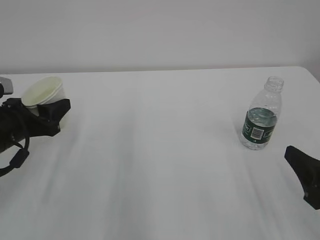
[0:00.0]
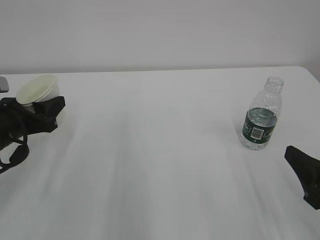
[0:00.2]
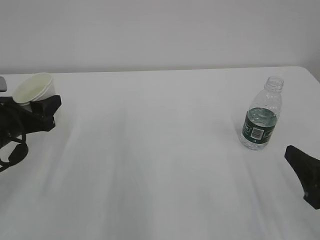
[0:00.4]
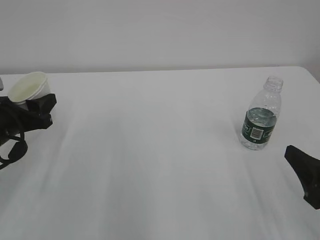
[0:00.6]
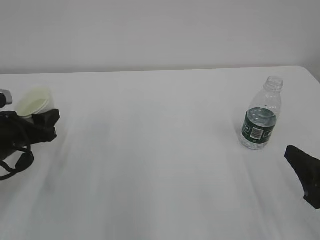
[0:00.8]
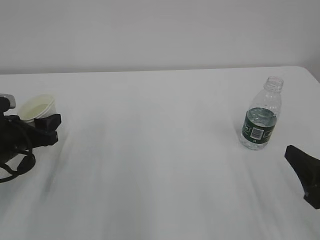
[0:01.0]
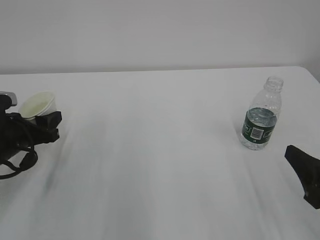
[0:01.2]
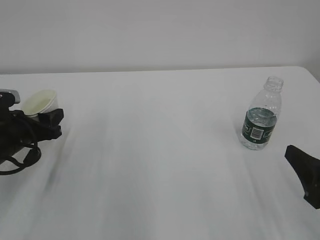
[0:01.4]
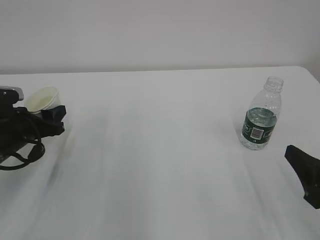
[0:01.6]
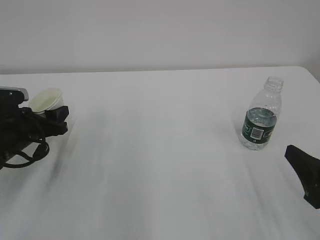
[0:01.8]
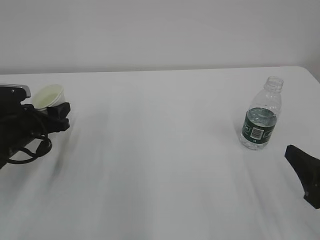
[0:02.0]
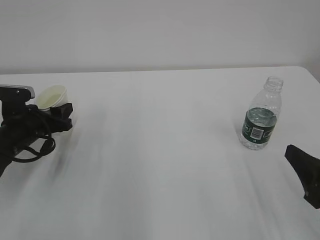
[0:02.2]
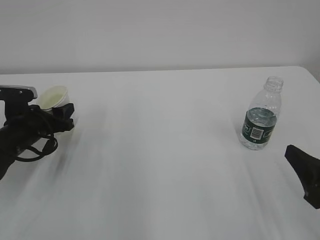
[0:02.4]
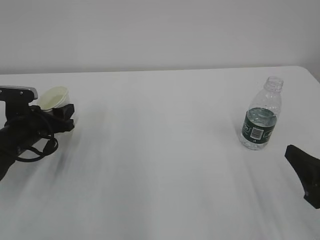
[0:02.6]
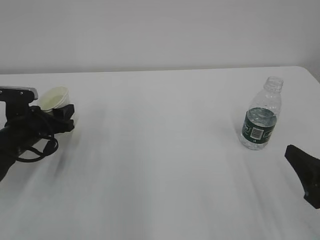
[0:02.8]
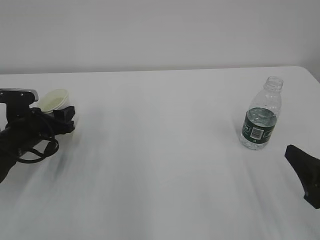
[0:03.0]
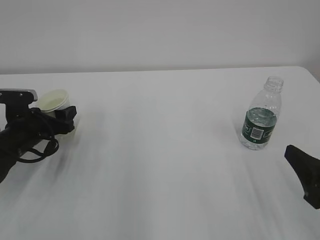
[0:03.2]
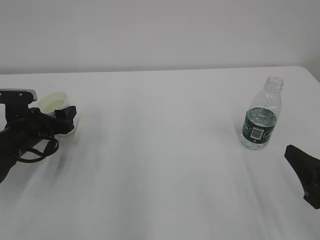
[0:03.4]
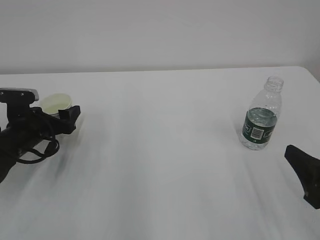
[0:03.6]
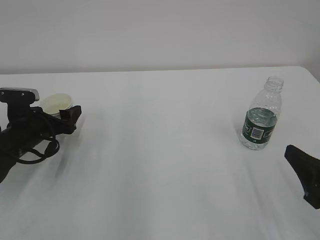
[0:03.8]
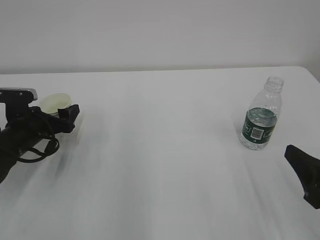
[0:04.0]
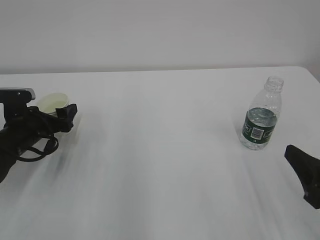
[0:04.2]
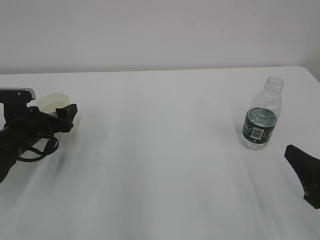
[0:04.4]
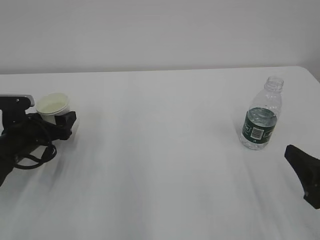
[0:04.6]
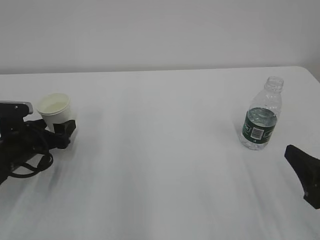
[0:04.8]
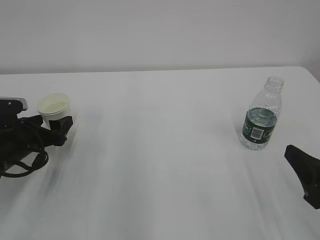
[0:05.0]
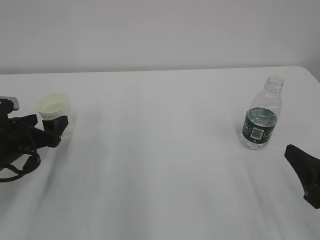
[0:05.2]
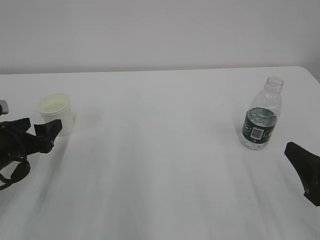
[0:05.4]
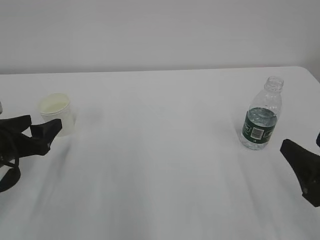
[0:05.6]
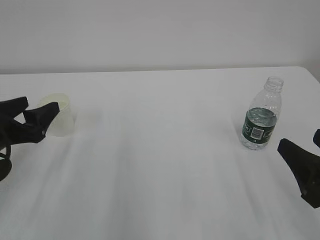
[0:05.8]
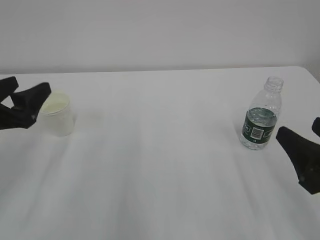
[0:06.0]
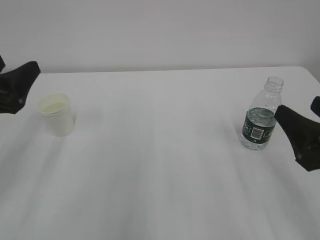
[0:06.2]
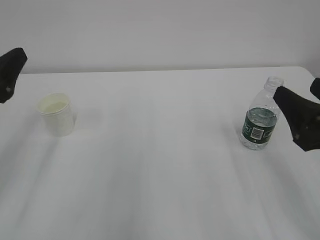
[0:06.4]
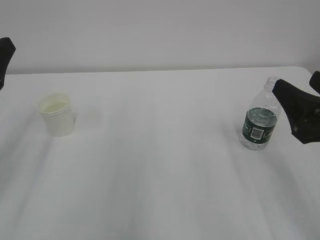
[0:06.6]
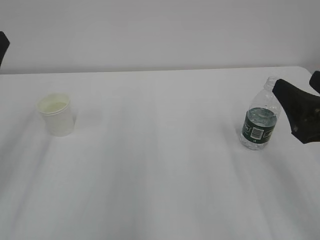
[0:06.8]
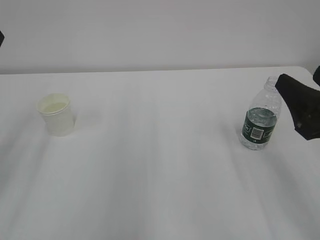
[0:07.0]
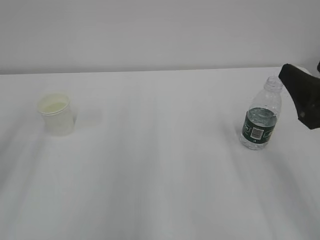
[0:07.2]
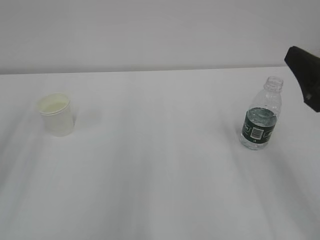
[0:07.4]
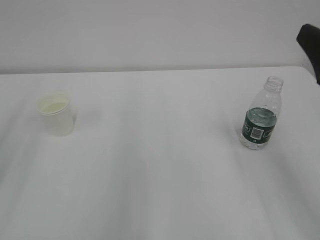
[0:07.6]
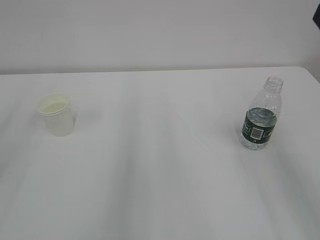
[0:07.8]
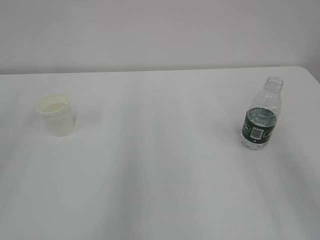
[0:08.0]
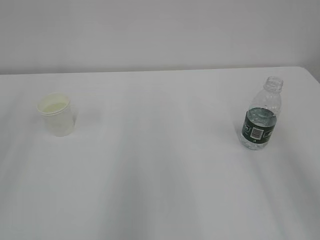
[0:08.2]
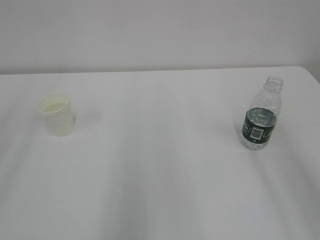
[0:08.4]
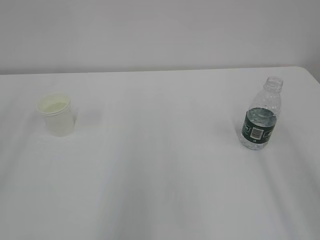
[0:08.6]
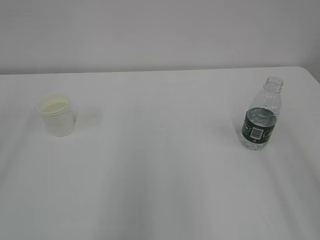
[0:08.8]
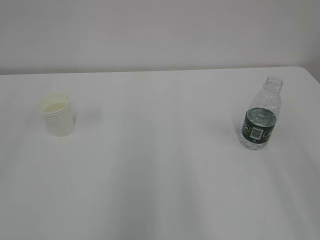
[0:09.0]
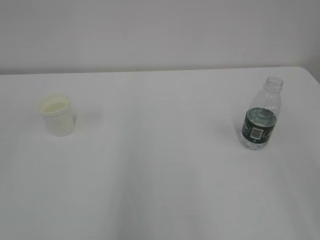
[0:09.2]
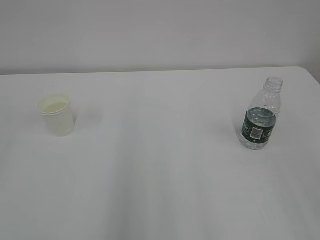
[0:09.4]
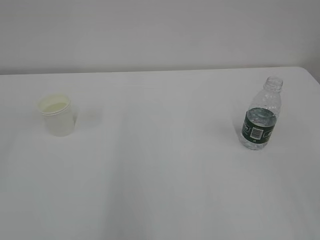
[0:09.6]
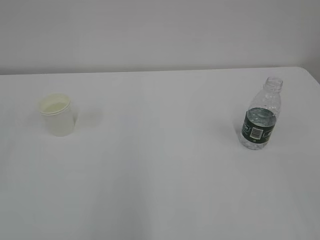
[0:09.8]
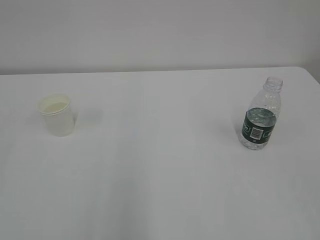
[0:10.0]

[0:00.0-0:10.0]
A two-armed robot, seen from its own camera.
0:00.0 to 0:01.4: The grippers stay close to where they were, moving slightly.
0:01.4 to 0:02.8: The left gripper changes place by approximately 5 cm.
0:02.8 to 0:04.2: The left gripper opens its fingers.
0:04.2 to 0:05.8: The left gripper heads backward and upward, covering some 10 cm.
0:05.8 to 0:07.2: The left gripper travels upward by roughly 10 cm; the right gripper shifts roughly 5 cm upward.
0:07.2 to 0:08.6: The right gripper goes approximately 15 cm upward and backward.
